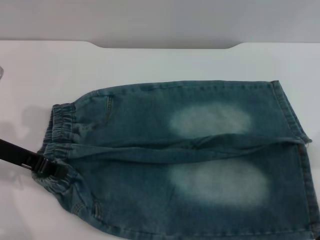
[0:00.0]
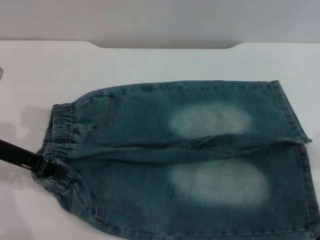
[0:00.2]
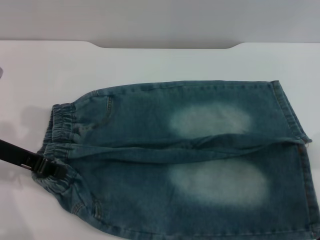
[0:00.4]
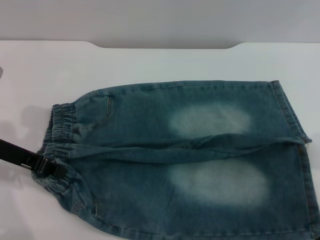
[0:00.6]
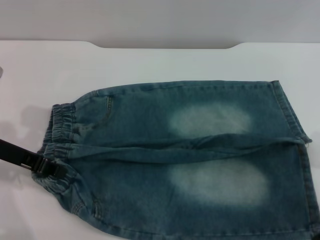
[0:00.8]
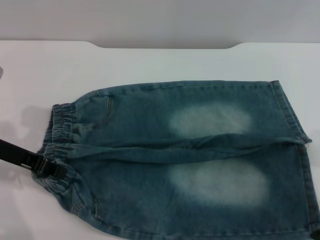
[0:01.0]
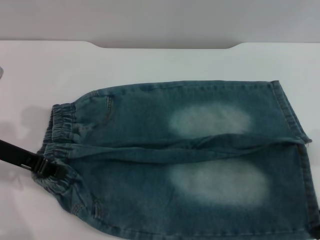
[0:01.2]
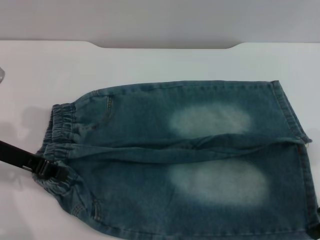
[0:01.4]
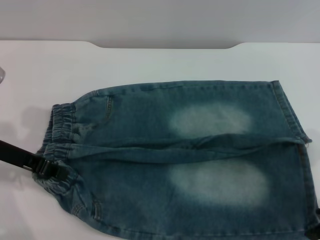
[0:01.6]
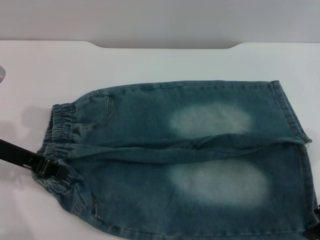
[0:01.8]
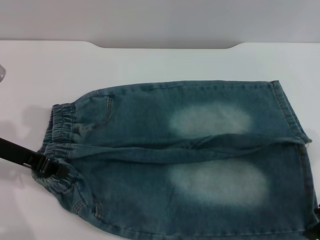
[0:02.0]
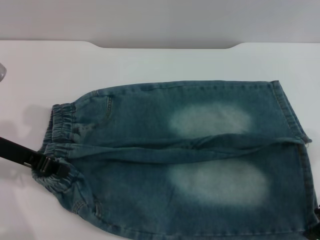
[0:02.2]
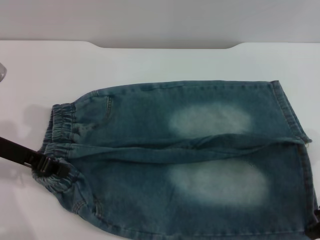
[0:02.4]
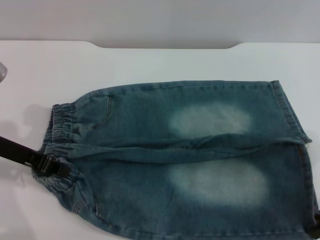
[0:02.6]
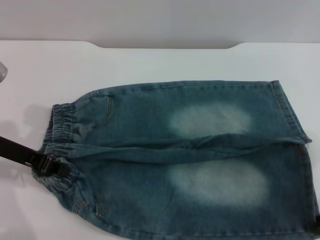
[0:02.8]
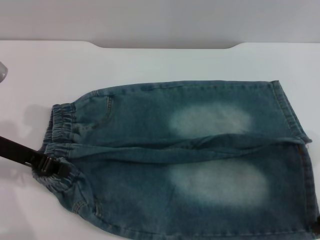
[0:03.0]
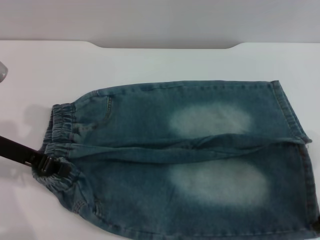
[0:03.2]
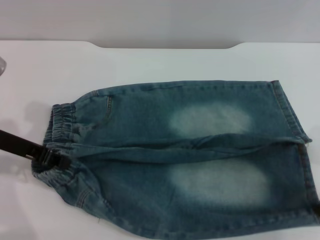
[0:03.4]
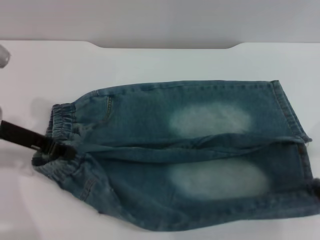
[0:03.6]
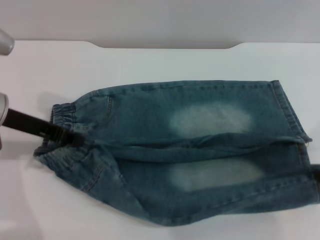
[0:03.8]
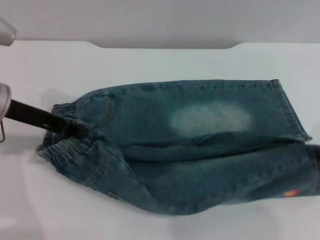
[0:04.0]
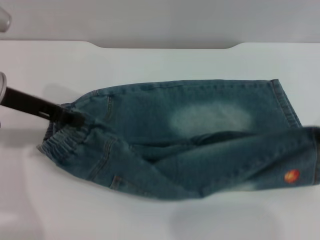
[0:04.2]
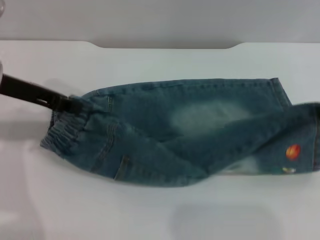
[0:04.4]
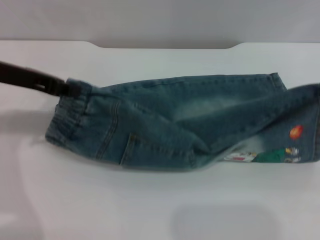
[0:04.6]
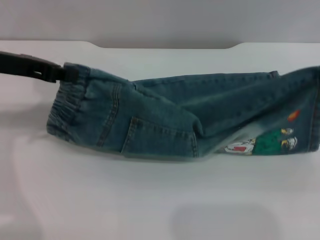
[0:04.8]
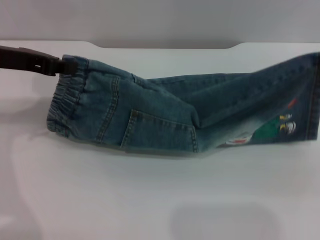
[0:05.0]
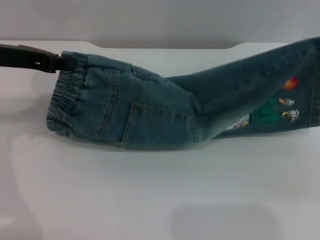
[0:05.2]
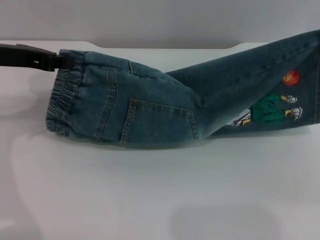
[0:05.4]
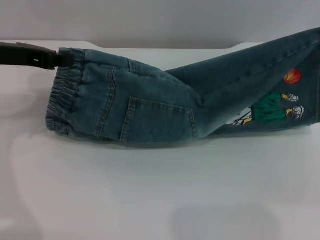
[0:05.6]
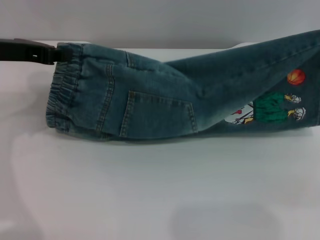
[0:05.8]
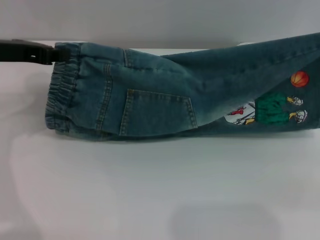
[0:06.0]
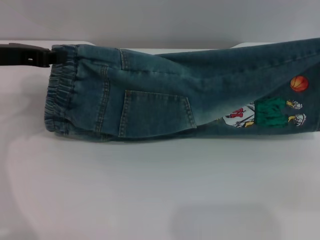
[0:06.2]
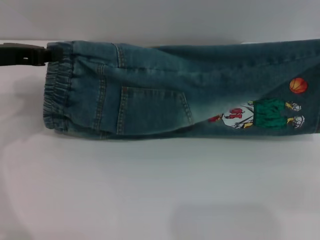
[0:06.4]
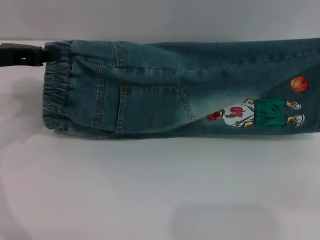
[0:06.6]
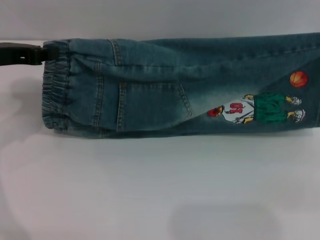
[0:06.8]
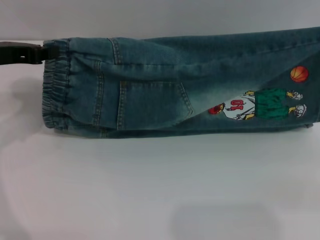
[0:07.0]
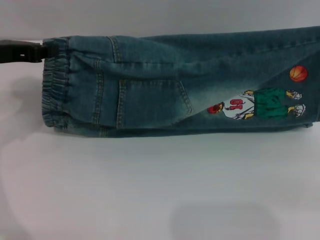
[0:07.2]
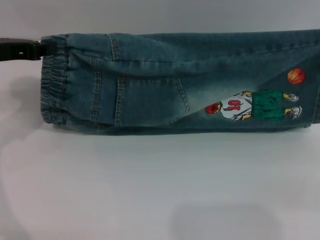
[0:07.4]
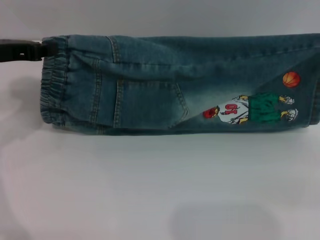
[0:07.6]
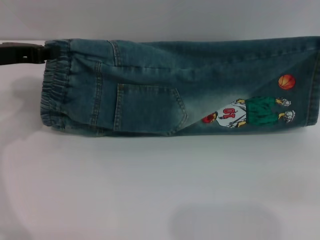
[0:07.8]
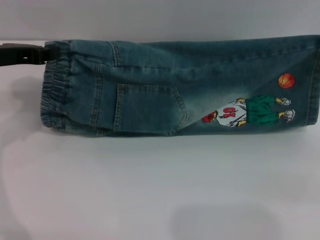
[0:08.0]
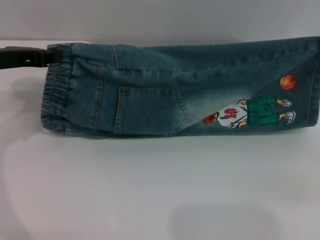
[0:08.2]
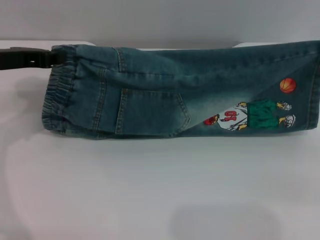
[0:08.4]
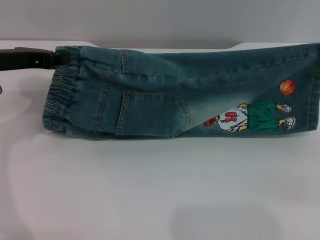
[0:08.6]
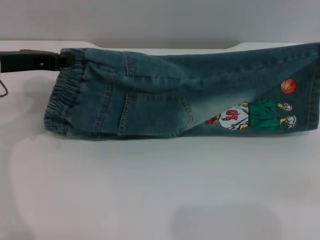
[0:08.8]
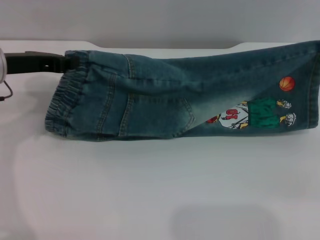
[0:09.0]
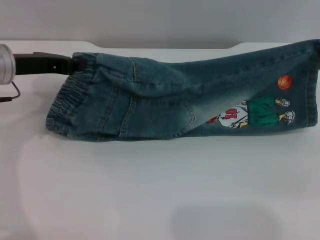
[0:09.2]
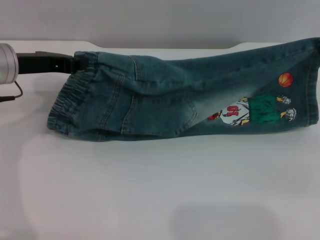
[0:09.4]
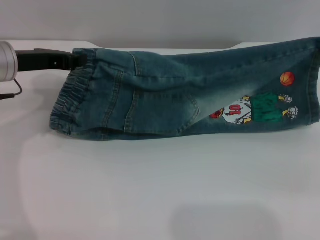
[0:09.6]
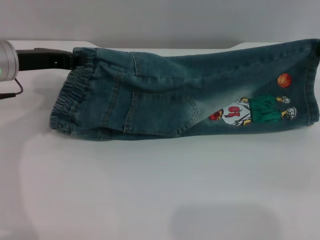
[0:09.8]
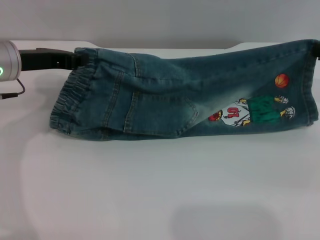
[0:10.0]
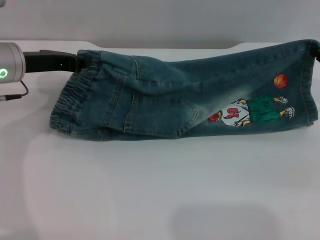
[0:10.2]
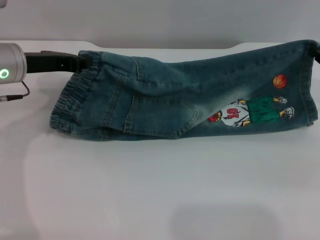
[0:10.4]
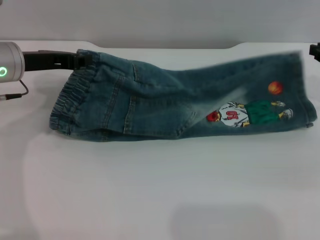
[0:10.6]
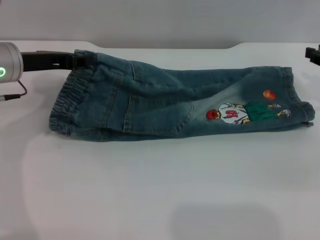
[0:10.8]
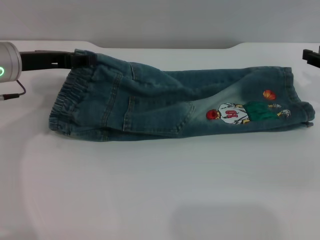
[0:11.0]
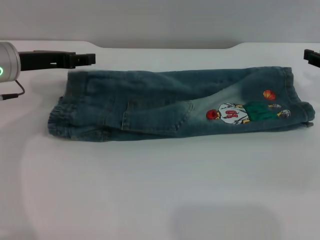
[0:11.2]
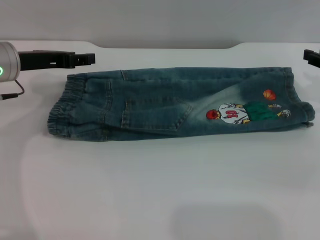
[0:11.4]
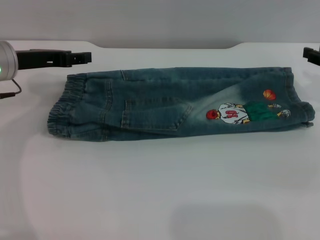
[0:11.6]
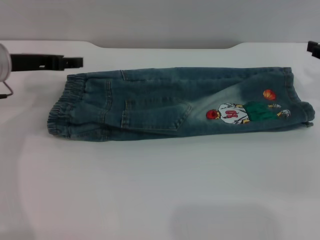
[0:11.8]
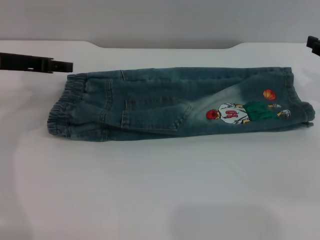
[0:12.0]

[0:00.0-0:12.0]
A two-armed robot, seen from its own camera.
0:03.0 to 0:04.4: Both grippers move upward, roughly 5 cm.
0:04.4 to 0:06.0: The right gripper changes place by some 5 cm.
0:06.0 to 0:07.6: There are only small adjustments of the grippers.
0:07.6 to 0:09.0: The grippers stay close to where they were, moving slightly.
0:09.0 to 0:10.4: There are only small adjustments of the grippers.
0:10.4 to 0:12.0: The left gripper opens its fingers; the right gripper opens.

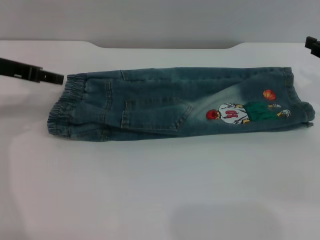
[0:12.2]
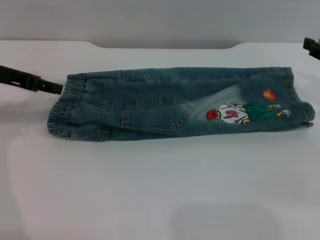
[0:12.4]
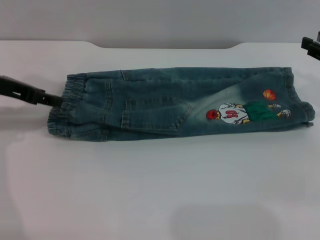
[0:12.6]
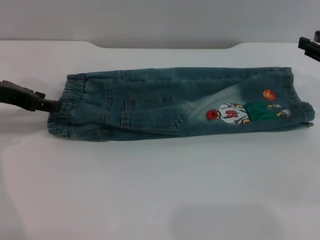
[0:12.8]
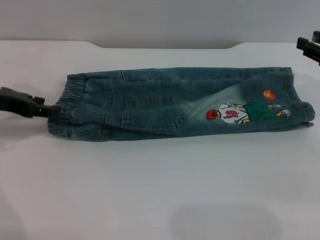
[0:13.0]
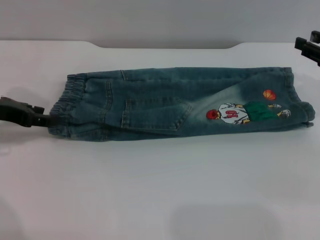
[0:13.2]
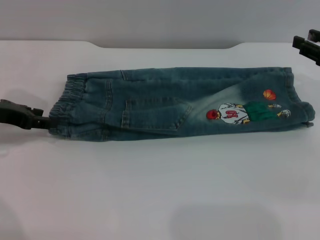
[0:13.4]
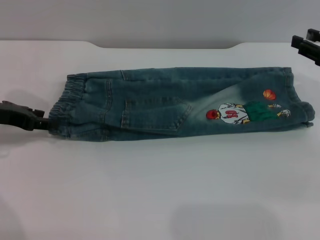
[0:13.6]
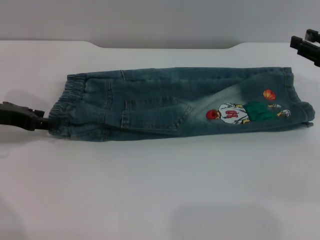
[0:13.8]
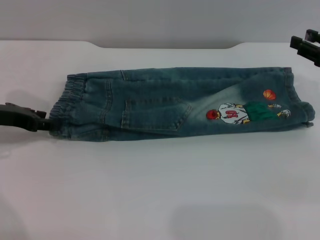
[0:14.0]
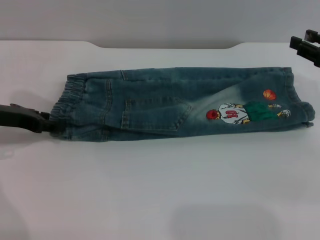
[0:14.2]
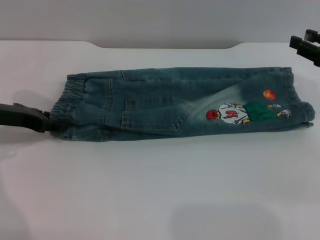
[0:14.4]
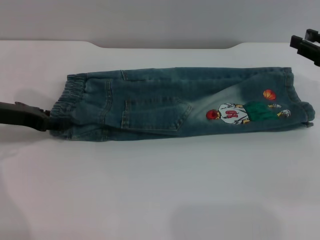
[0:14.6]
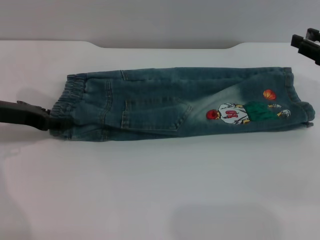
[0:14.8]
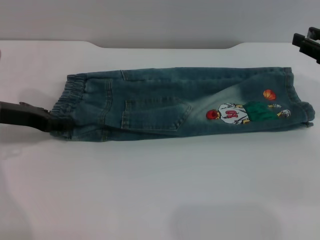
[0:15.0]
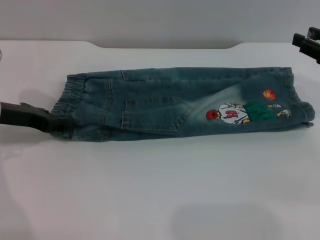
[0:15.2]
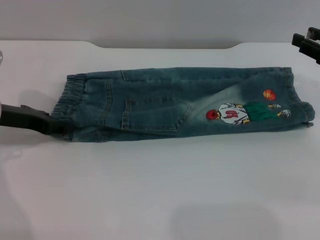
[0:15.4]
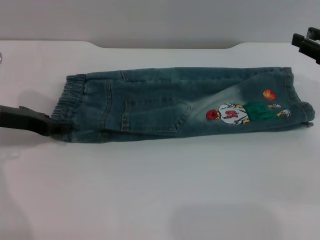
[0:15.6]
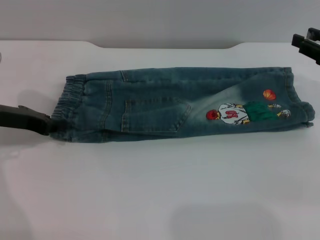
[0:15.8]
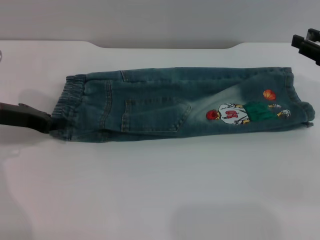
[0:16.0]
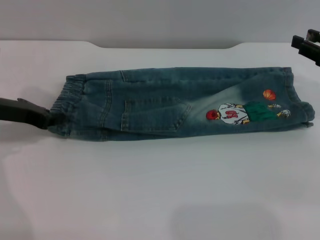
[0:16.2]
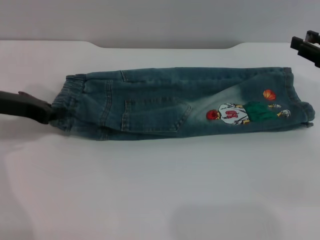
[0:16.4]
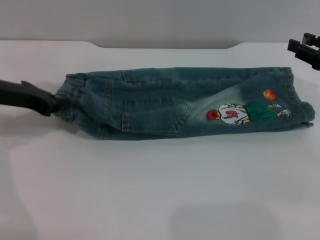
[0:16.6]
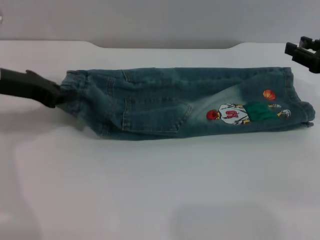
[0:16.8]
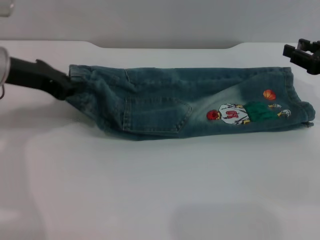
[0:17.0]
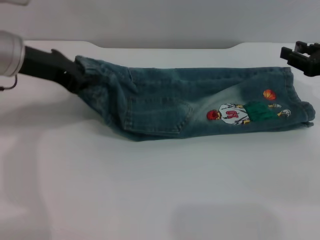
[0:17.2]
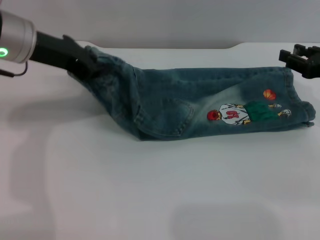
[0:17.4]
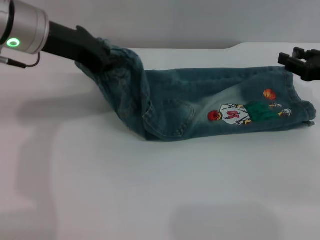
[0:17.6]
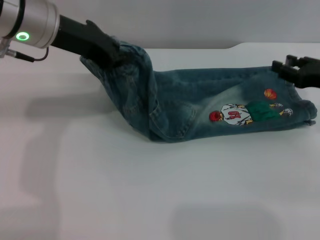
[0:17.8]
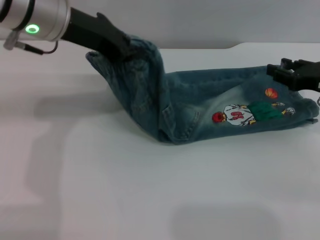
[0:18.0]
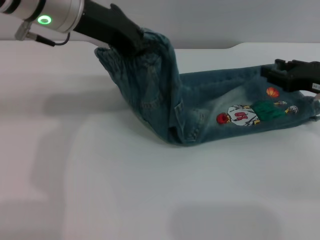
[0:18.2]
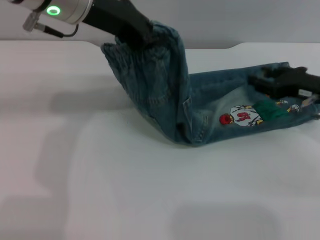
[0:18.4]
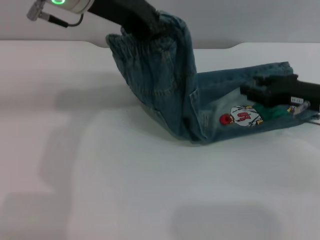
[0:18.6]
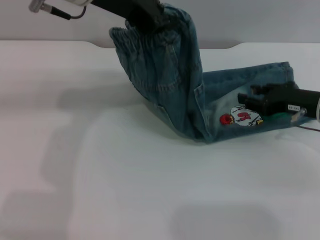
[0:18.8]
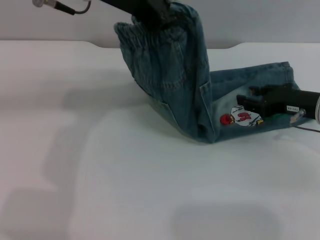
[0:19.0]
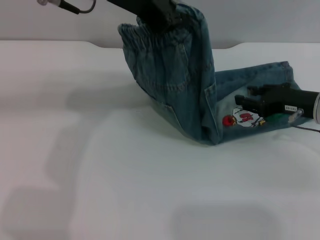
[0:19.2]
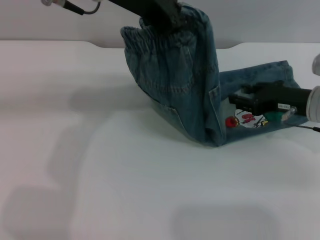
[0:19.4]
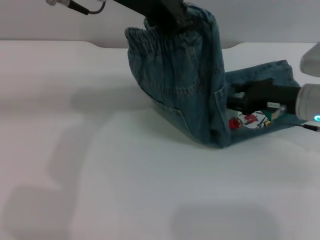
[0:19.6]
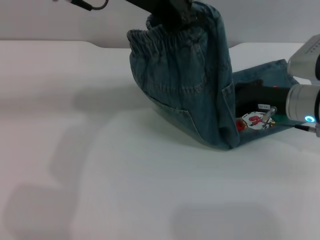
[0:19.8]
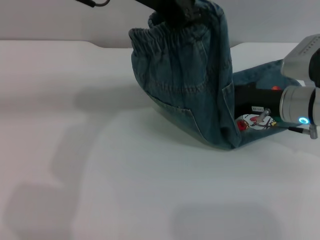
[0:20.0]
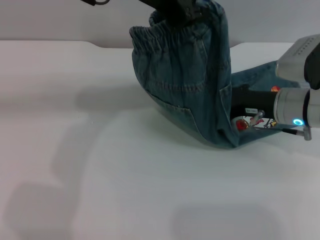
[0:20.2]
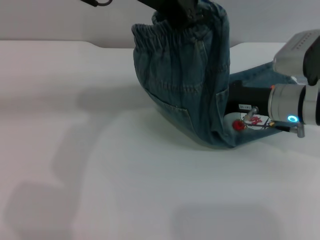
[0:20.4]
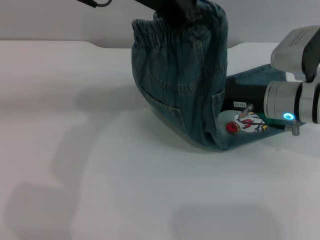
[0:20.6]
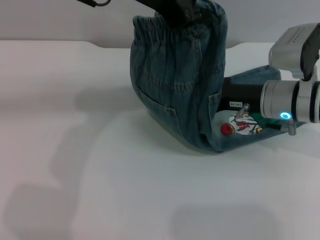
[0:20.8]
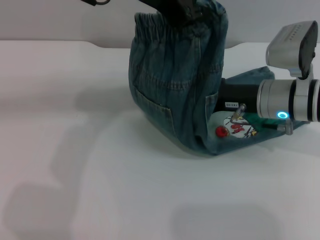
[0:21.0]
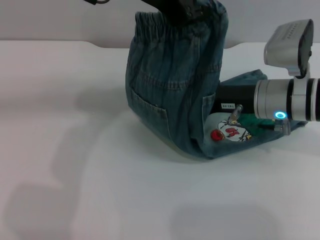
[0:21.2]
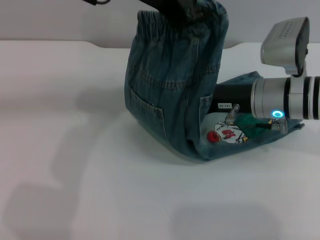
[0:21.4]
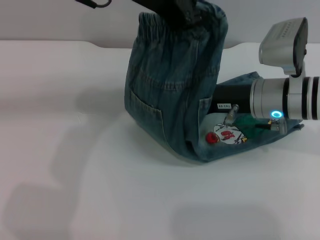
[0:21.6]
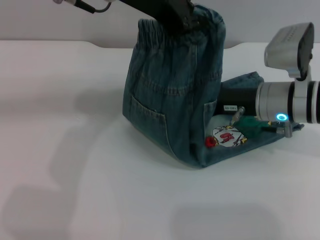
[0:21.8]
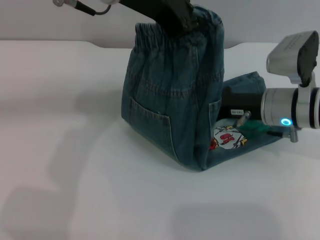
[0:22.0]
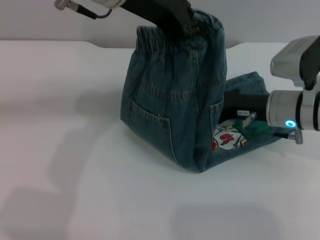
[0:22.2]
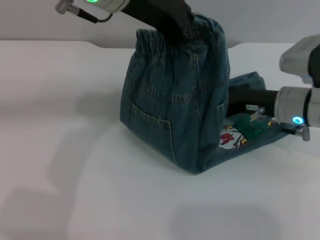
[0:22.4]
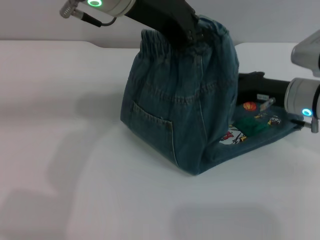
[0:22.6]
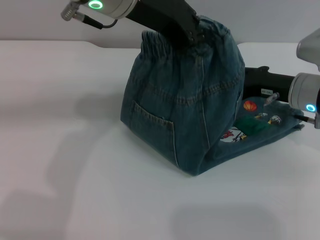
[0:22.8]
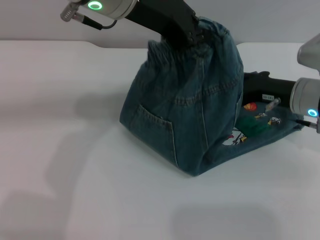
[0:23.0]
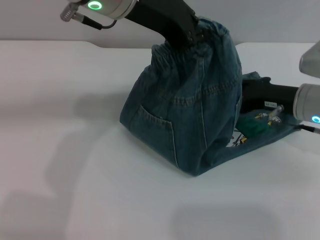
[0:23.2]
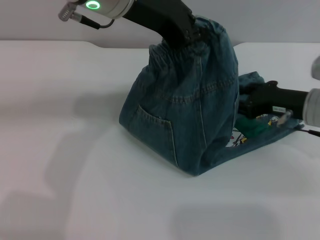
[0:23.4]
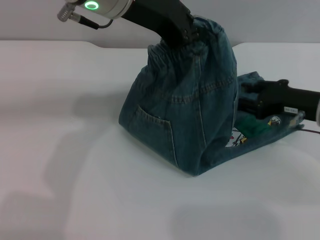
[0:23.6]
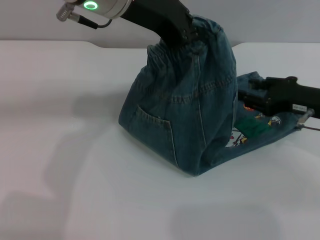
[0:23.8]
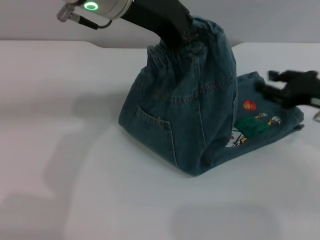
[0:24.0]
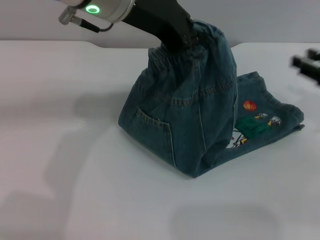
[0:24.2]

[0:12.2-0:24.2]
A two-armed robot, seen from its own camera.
0:12.2 to 0:13.8: The left gripper goes roughly 5 cm downward.
0:13.8 to 0:15.2: The grippers make only small movements.
0:15.2 to 0:16.6: The left gripper closes up.
0:16.6 to 0:18.2: The left gripper moves to the right and upward, roughly 20 cm.
0:18.2 to 0:19.8: The right gripper is displaced to the left by about 5 cm. Meanwhile the left gripper heads to the right, covering some 5 cm.
0:19.8 to 0:21.2: The right gripper travels to the left by approximately 5 cm.
0:21.2 to 0:22.6: The right gripper travels to the right by about 5 cm.
0:22.6 to 0:24.2: The right gripper heads to the right and backward, covering roughly 10 cm.
